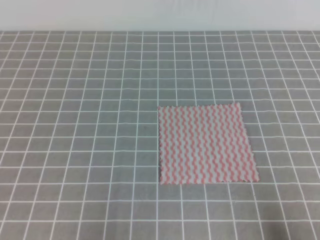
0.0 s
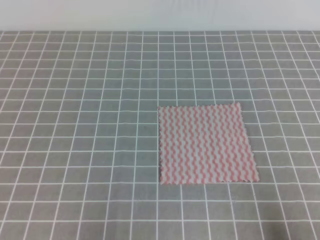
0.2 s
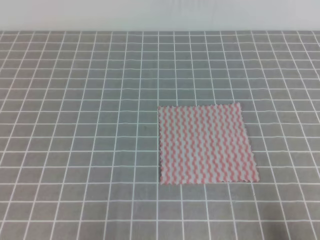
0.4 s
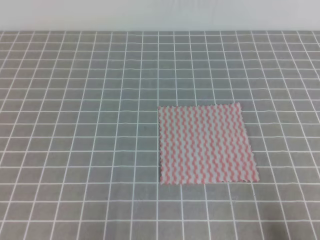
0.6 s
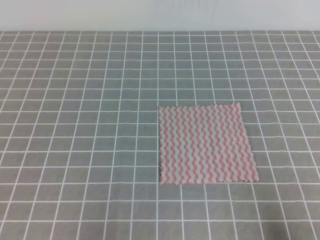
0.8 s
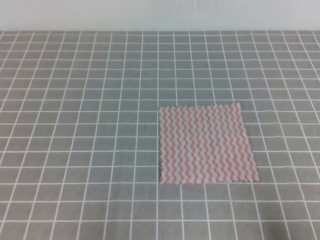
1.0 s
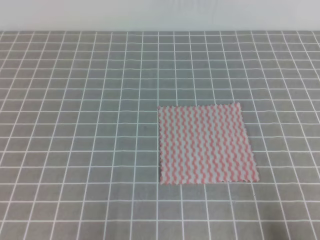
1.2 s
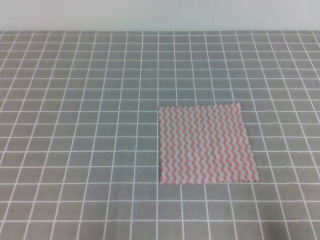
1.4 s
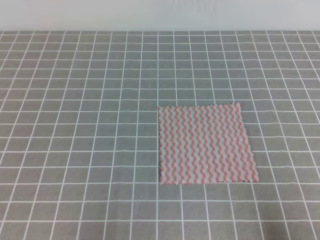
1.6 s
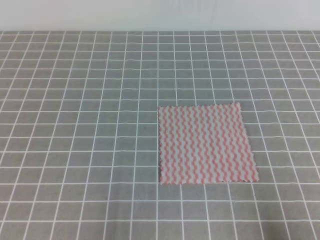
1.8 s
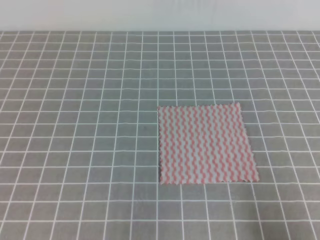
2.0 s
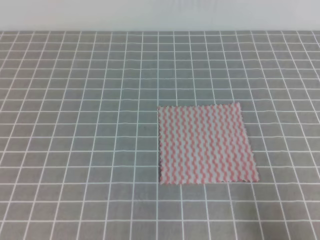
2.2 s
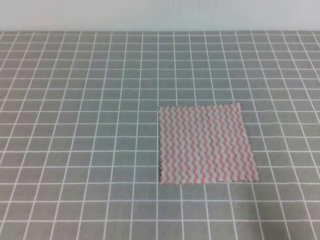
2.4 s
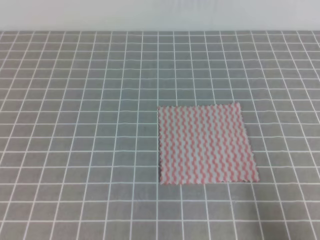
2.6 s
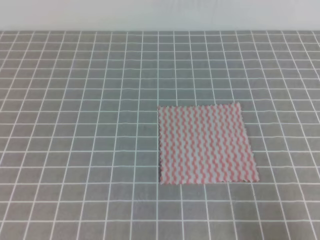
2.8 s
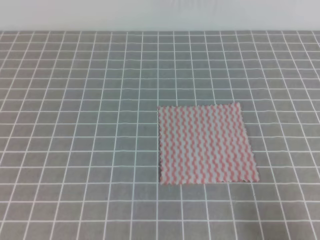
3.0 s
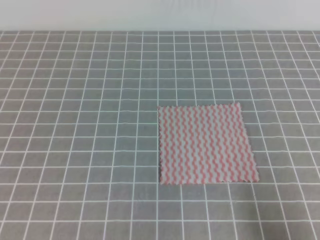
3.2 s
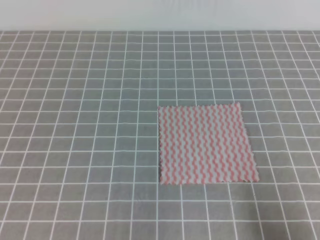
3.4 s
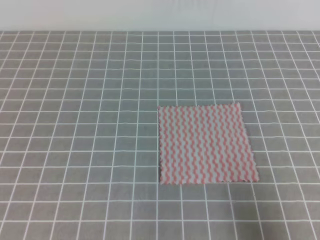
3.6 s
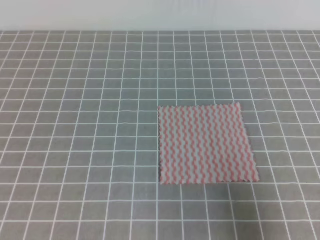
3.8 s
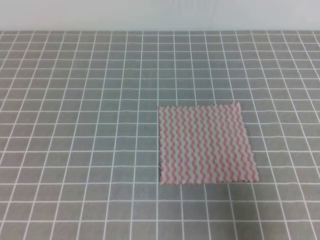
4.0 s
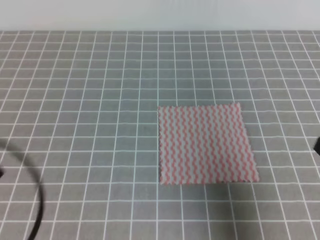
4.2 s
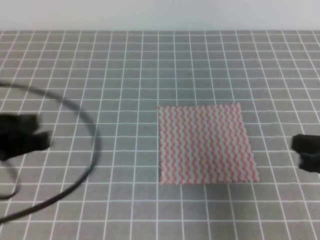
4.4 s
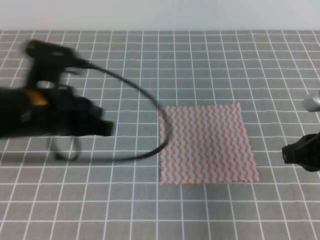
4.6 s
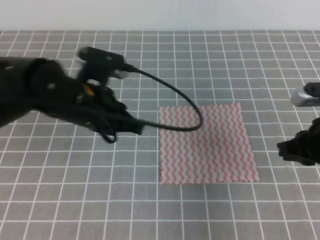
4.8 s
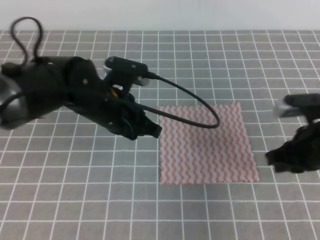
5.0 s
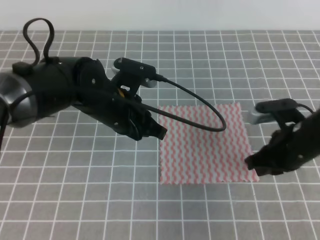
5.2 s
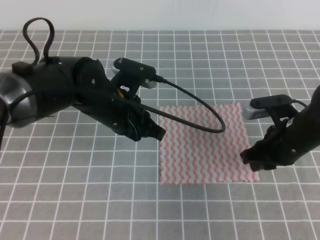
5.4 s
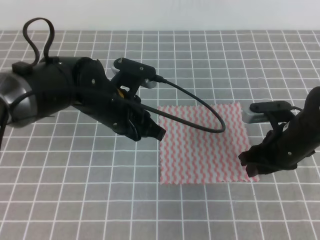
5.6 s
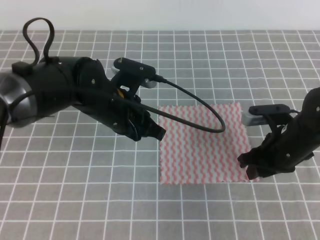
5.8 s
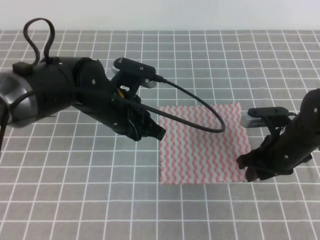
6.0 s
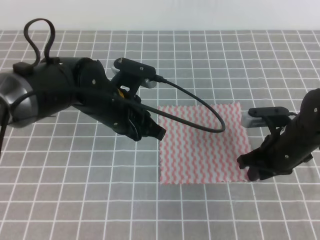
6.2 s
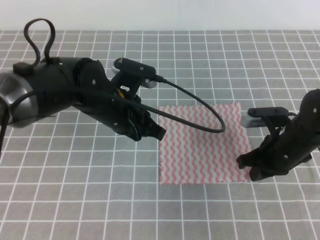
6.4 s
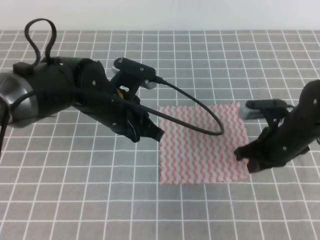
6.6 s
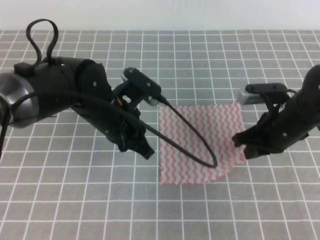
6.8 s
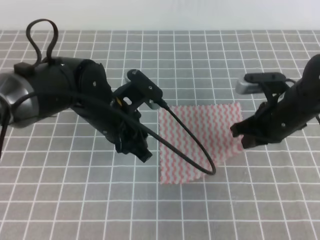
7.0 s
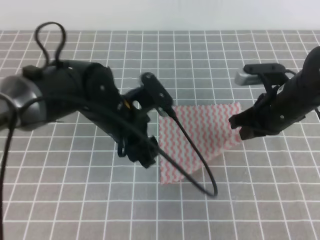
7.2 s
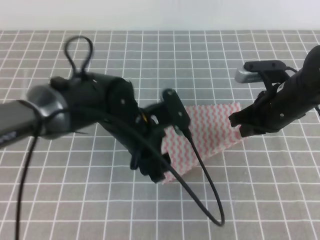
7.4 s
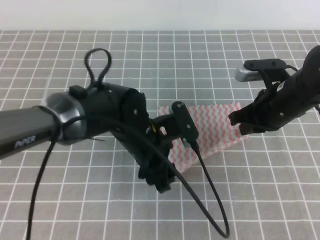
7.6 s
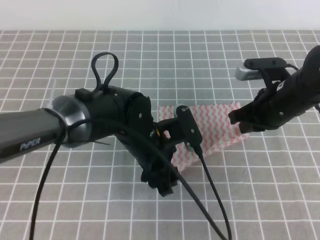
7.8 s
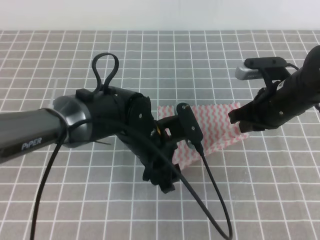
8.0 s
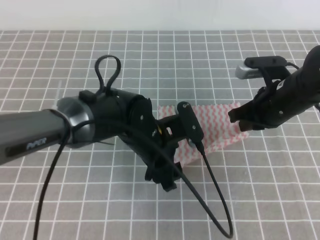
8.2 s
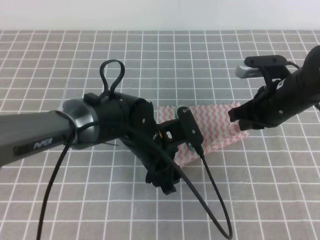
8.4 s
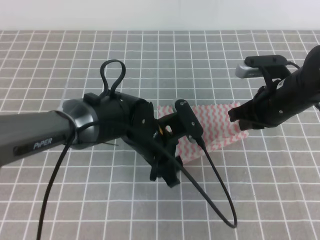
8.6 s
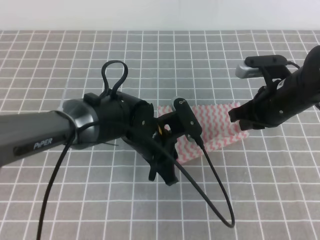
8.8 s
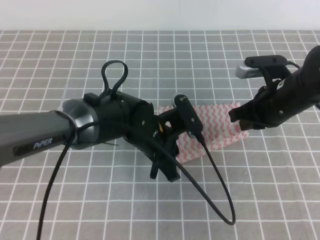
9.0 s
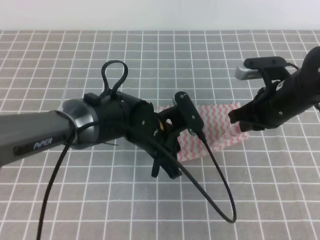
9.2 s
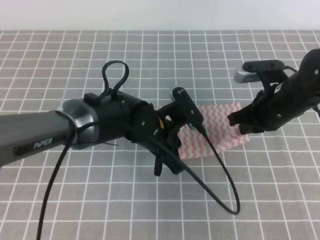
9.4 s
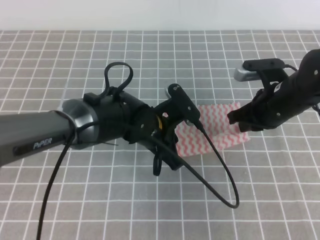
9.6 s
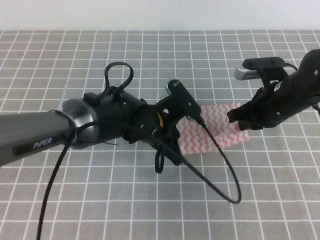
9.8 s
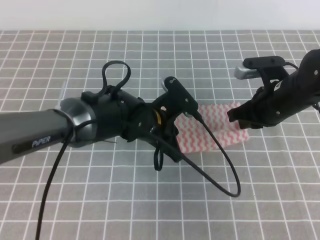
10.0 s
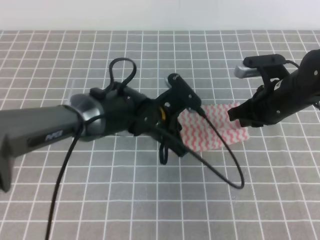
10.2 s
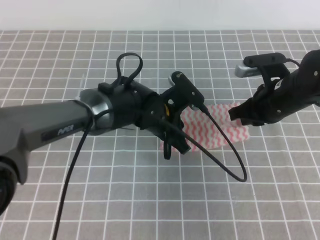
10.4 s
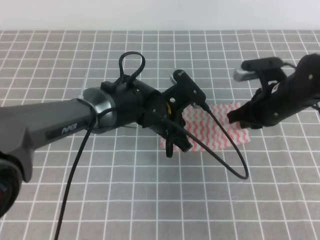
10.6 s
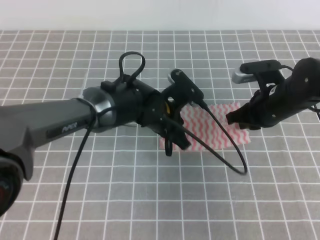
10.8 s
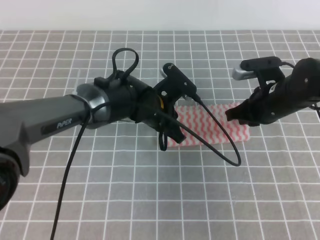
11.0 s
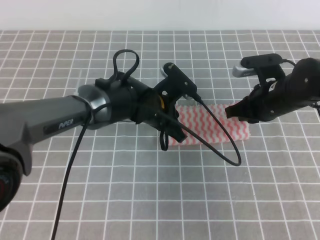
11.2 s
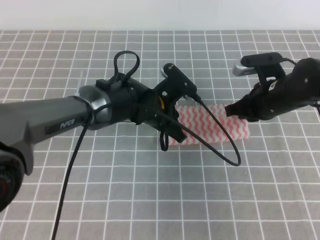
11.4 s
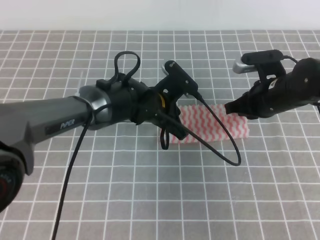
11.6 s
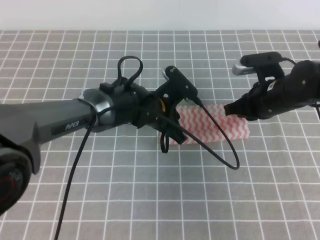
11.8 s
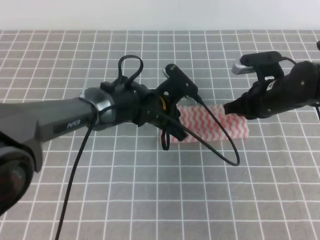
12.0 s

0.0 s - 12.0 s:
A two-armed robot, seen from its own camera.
0.0 s - 1.6 s: Both grippers stay about where they are.
3.0 s - 4.4 s: The right gripper goes about 15 cm forward and upward, while the left gripper moves forward, upward and to the right, approximately 15 cm.
4.4 s - 6.0 s: The right gripper moves forward, downward and to the left, approximately 15 cm, and opens up; the left gripper travels to the right and forward by some 20 cm.
6.0 s - 7.6 s: The left gripper changes place by some 5 cm, and opens up. The right gripper goes roughly 5 cm upward, and closes.
7.6 s - 9.0 s: The left gripper closes its fingers.
9.0 s - 10.4 s: The grippers stay close to where they were, moving slightly.
10.4 s - 12.0 s: The grippers move only a little.

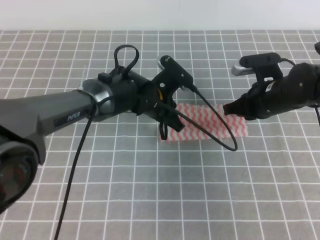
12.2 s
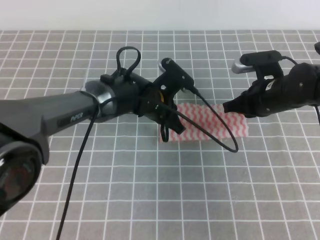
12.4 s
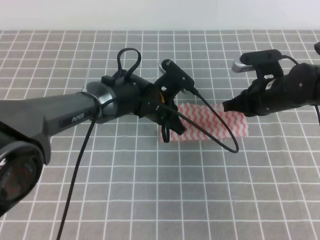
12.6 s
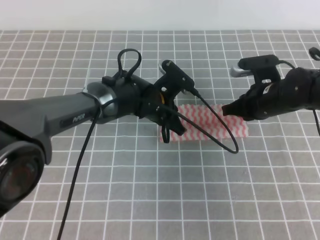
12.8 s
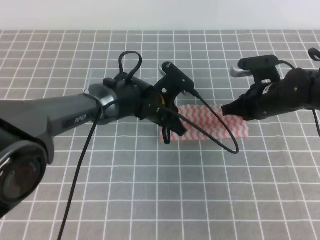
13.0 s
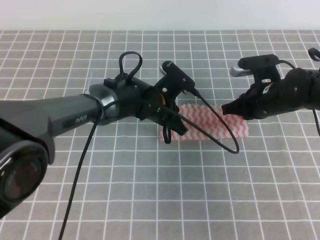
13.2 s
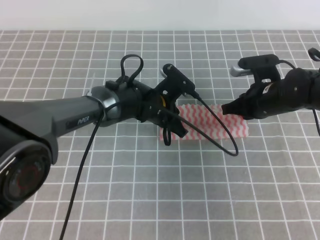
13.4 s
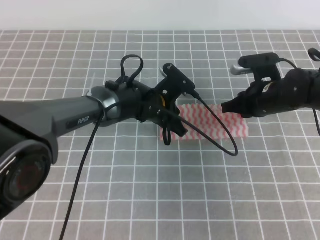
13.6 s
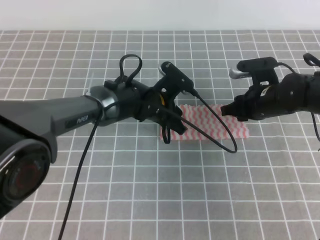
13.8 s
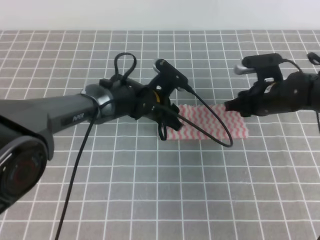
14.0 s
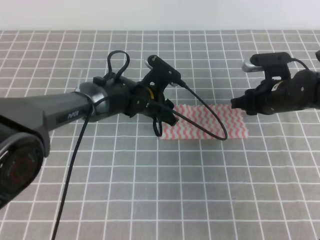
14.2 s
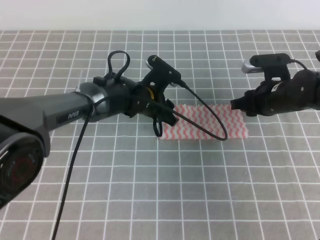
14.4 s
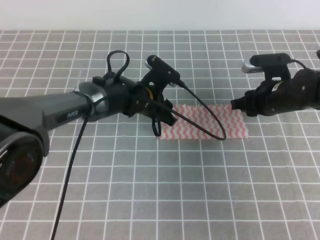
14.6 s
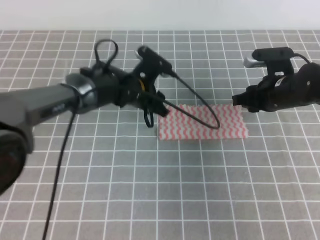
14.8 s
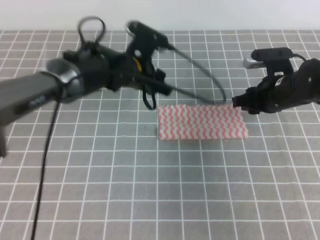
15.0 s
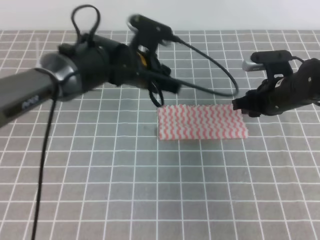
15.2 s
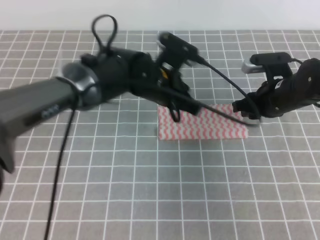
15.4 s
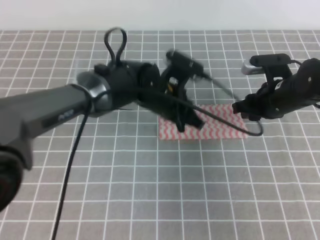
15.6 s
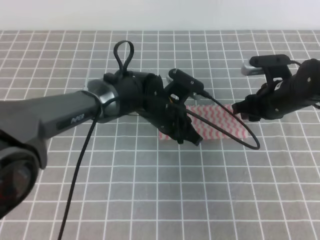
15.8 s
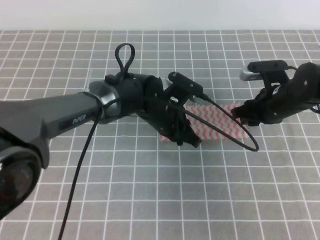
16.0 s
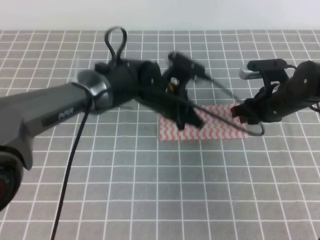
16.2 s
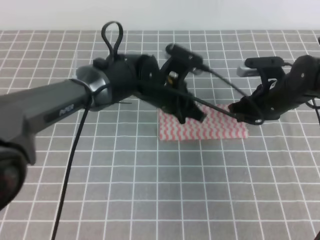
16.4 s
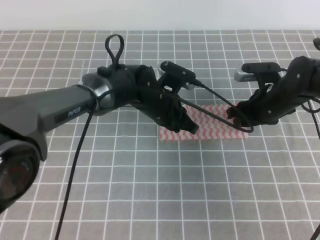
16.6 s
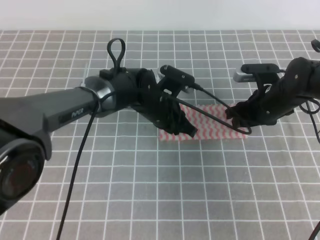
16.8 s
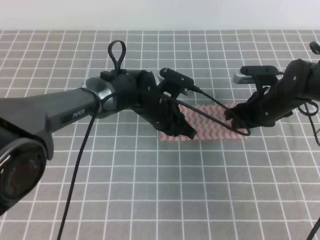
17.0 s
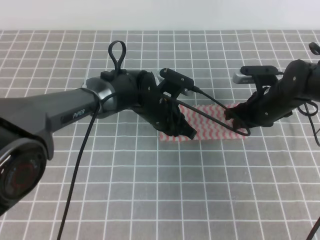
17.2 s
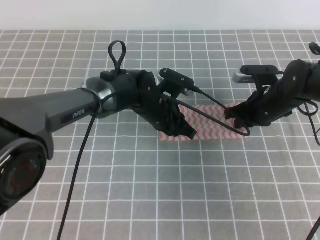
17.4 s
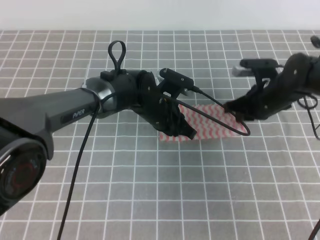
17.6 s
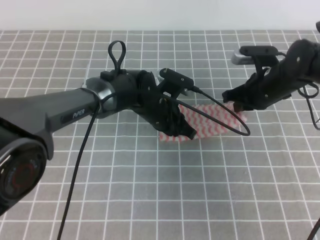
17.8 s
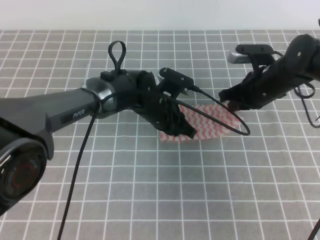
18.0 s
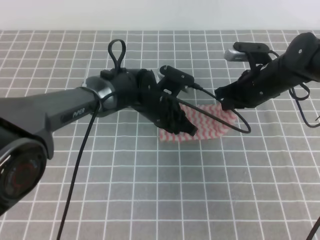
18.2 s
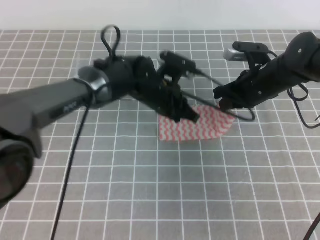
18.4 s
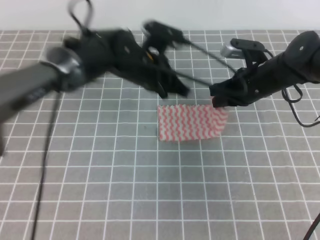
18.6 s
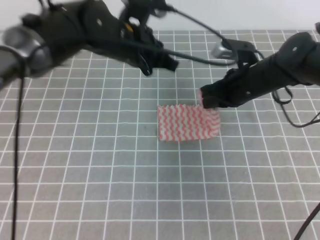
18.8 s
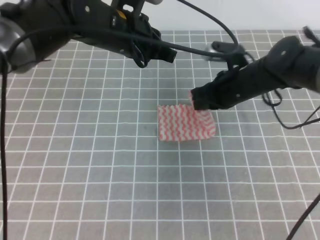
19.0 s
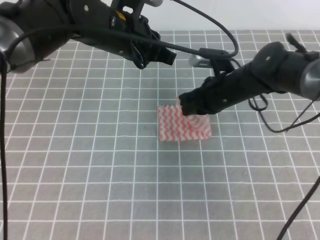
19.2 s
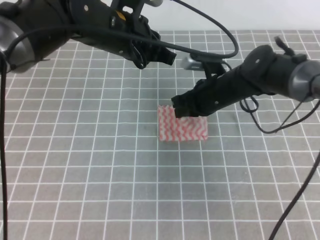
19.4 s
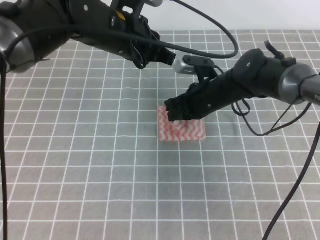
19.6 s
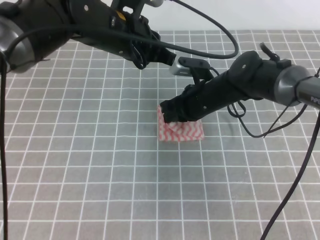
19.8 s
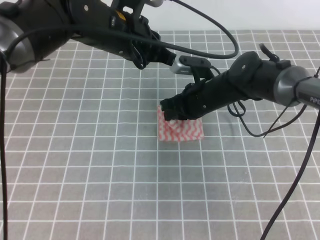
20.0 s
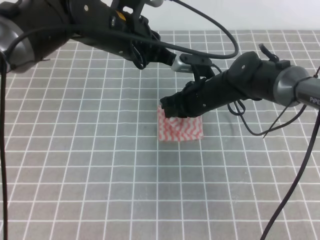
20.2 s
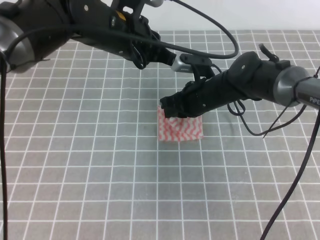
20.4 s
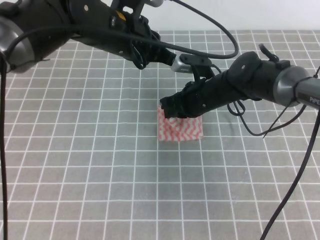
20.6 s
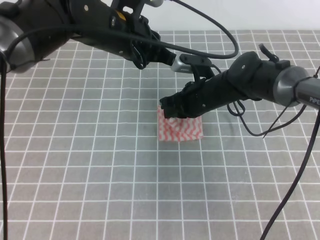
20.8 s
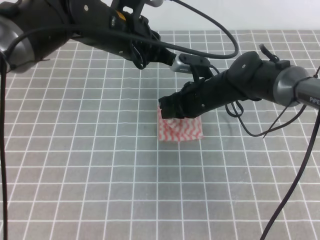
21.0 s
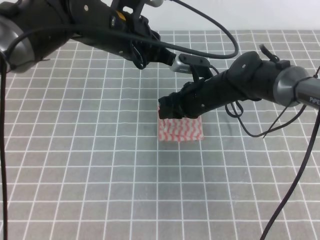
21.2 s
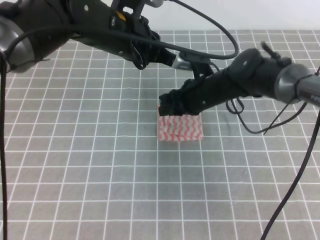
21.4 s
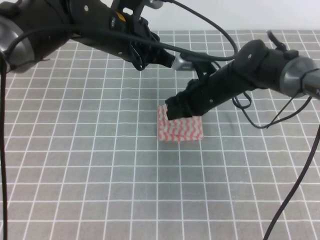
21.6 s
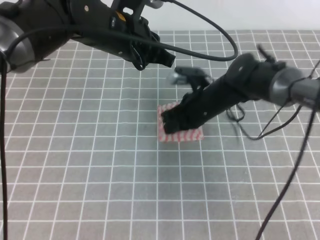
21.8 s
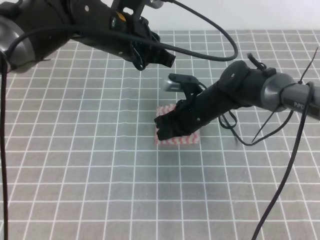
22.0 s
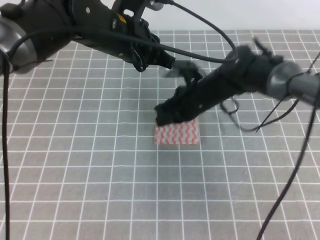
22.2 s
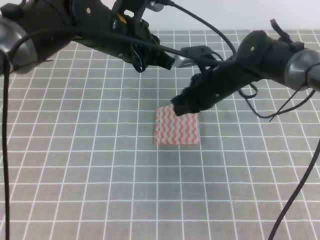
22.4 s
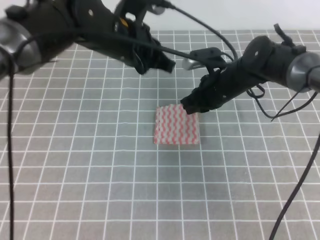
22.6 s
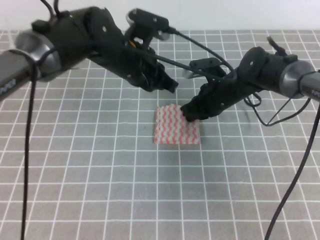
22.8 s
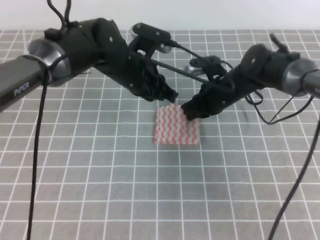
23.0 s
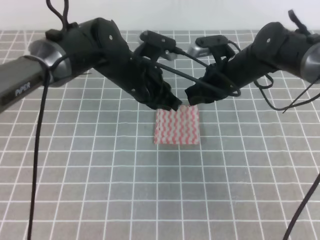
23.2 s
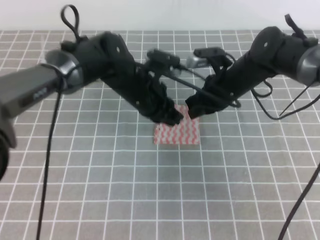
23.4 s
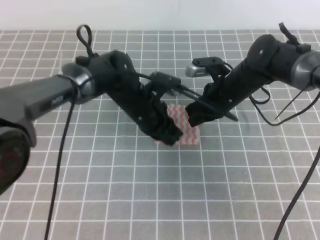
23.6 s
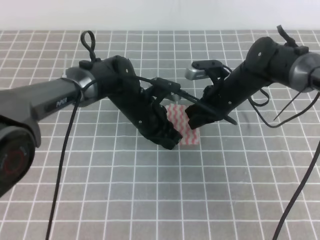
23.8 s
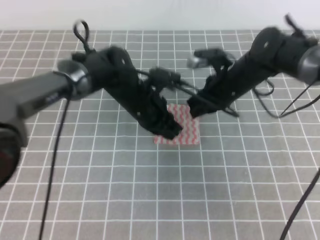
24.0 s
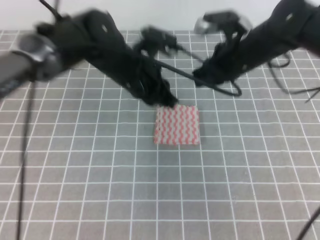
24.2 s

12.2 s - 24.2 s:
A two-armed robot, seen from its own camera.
12.2 s - 13.8 s: The left gripper opens up. The right gripper opens.
13.8 s - 15.2 s: The left gripper heads upward, covering some 10 cm.
15.2 s - 16.6 s: The left gripper travels downward by about 5 cm, and closes up.
16.6 s - 18.2 s: The right gripper closes.
18.2 s - 19.8 s: The right gripper moves to the left, roughly 10 cm; the left gripper shifts about 15 cm upward.
19.8 s - 21.2 s: The right gripper opens up.
21.2 s - 22.6 s: The right gripper closes up.
22.6 s - 24.2 s: The left gripper reaches some 15 cm downward, then returns; the right gripper shifts approximately 10 cm upward.
